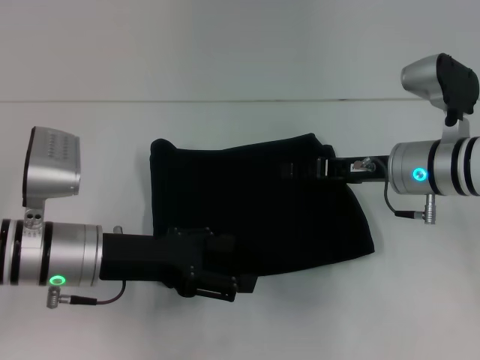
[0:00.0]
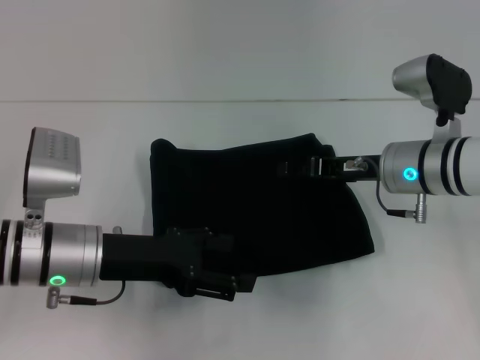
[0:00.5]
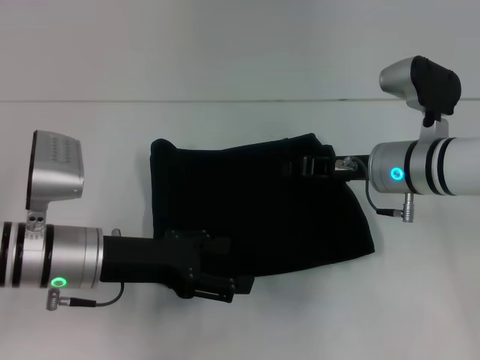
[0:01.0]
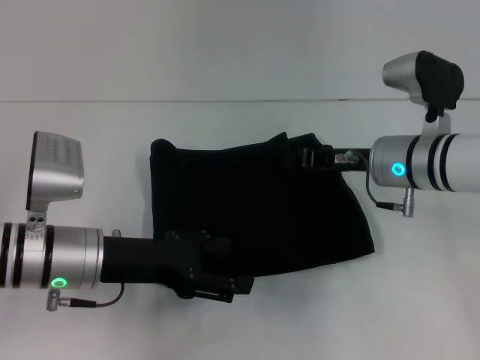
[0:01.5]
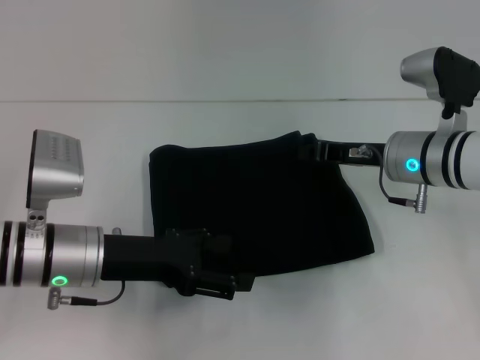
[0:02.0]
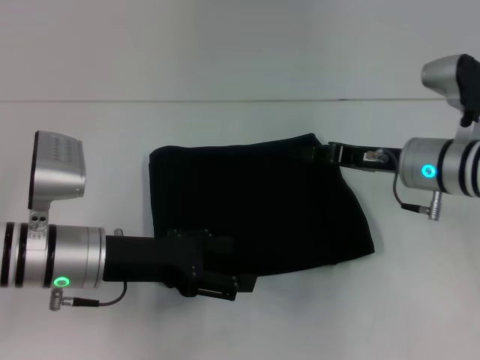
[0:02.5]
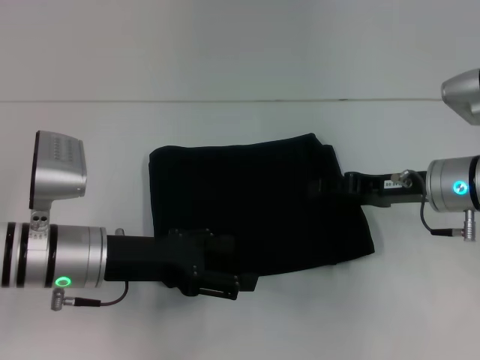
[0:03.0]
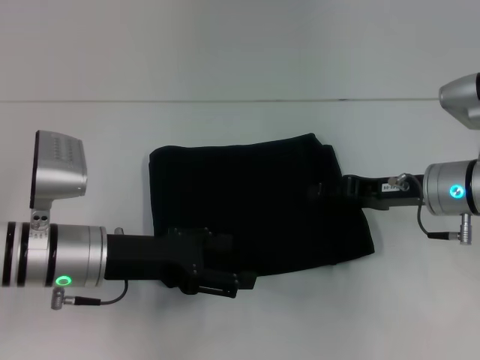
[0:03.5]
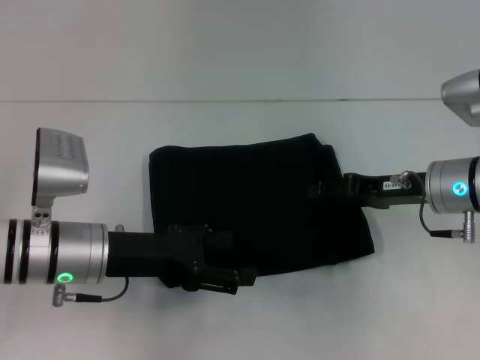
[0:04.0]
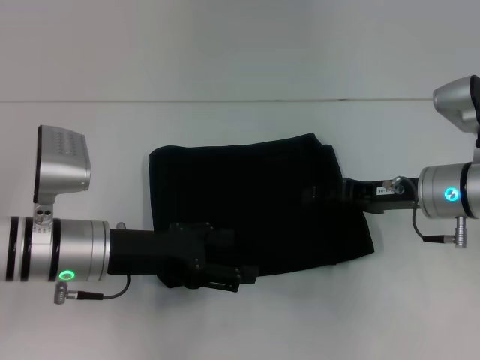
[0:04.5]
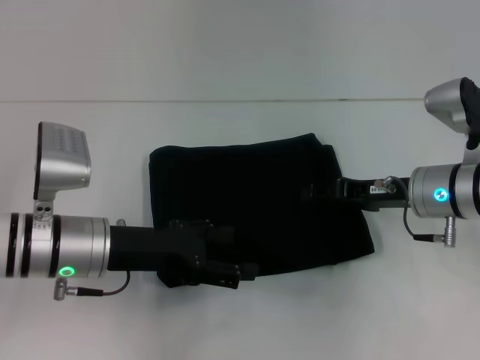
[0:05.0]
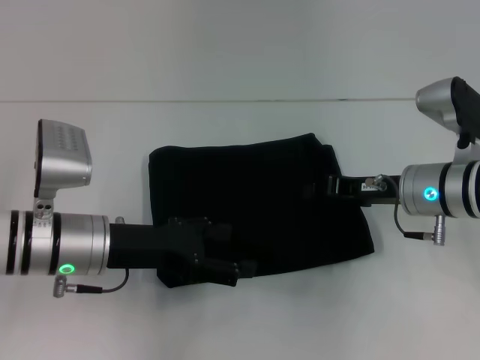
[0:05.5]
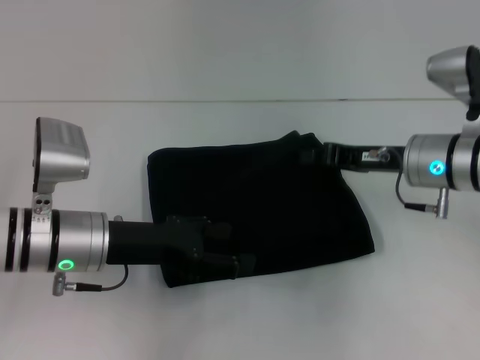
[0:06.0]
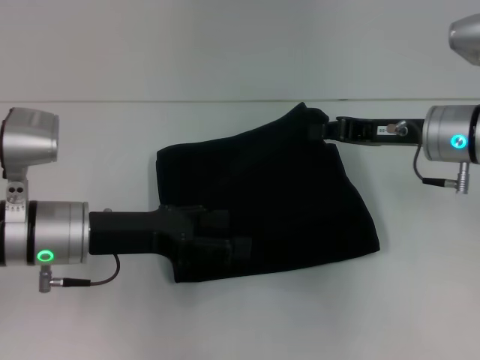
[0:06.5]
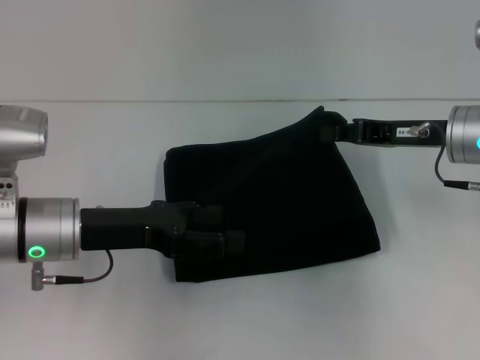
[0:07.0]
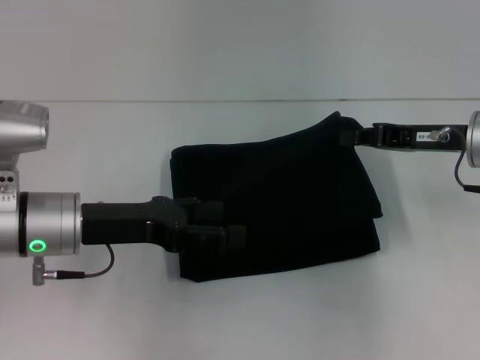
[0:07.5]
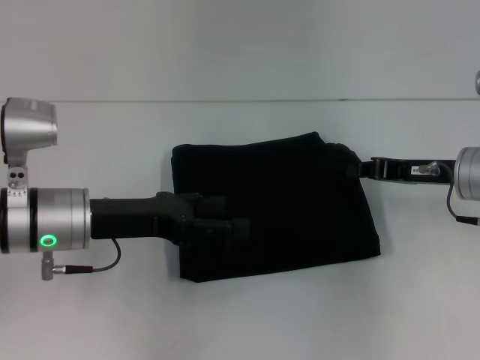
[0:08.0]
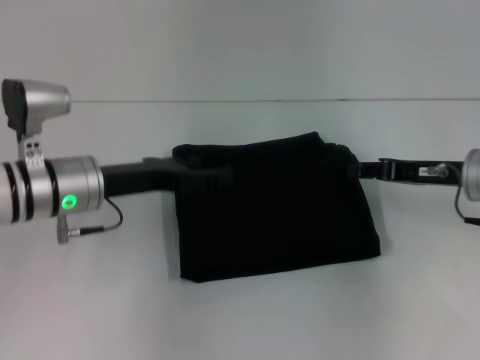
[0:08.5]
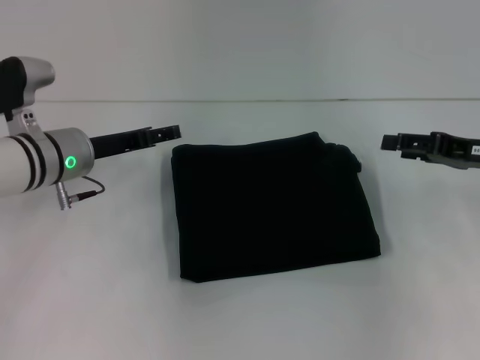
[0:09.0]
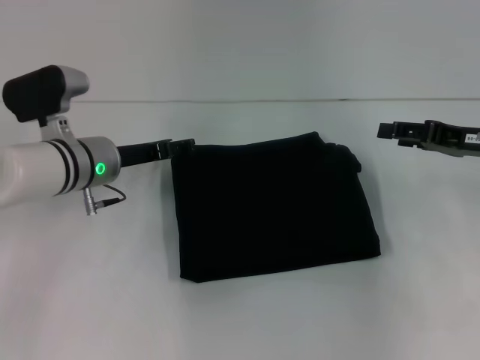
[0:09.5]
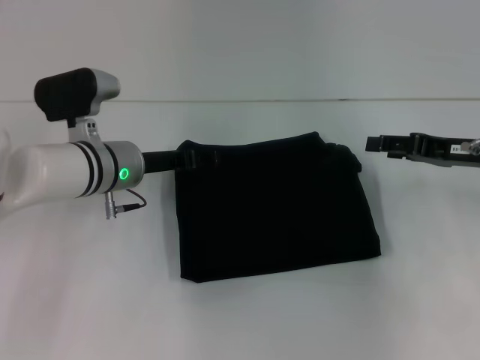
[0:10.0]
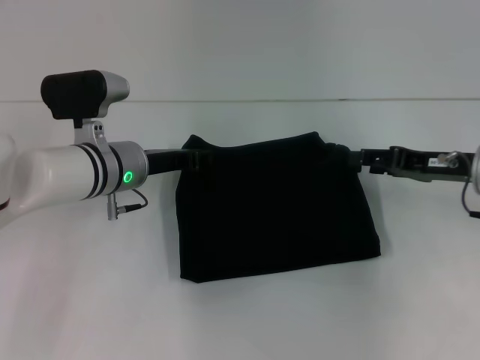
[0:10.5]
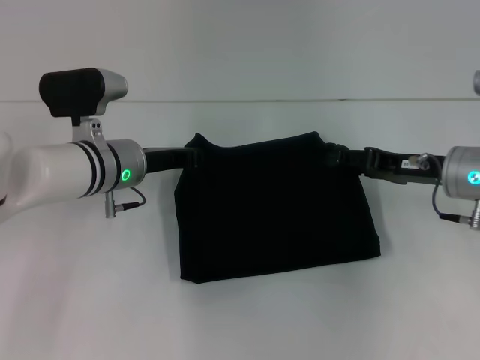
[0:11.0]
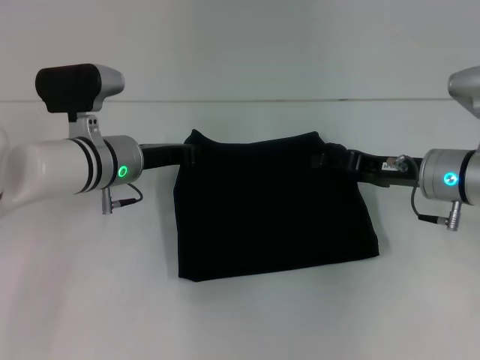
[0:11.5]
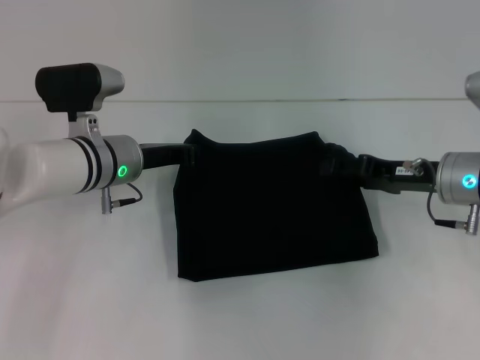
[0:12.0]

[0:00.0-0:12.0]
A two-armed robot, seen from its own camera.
0:00.0 to 0:02.0: The right gripper closes.
0:02.0 to 0:04.0: The right gripper opens up.
0:04.0 to 0:06.0: The right gripper closes.
0:06.0 to 0:08.0: The right gripper heads to the right, covering some 5 cm.
0:08.0 to 0:10.0: The right gripper opens its fingers. Meanwhile the left gripper heads forward, covering about 10 cm.
0:10.0 to 0:12.0: The right gripper goes approximately 5 cm to the left; the left gripper closes.

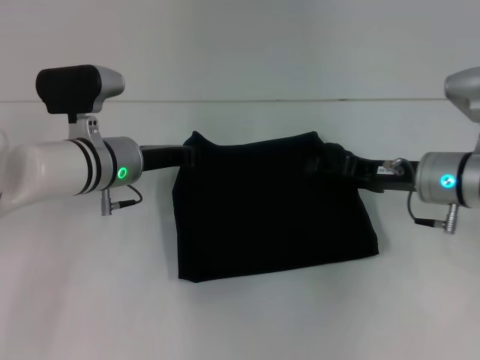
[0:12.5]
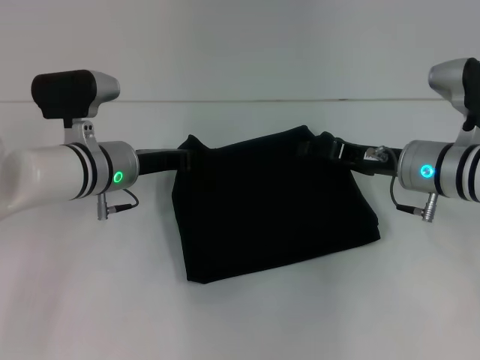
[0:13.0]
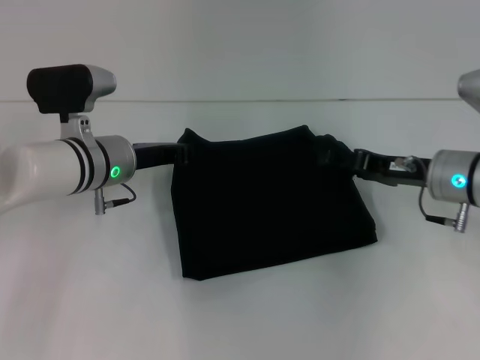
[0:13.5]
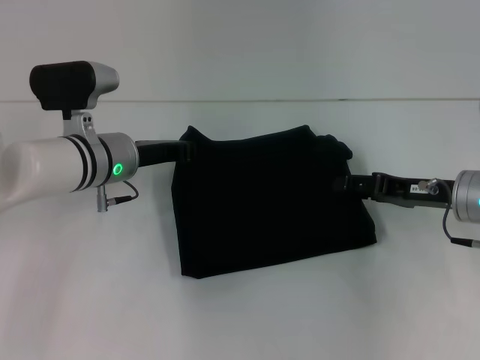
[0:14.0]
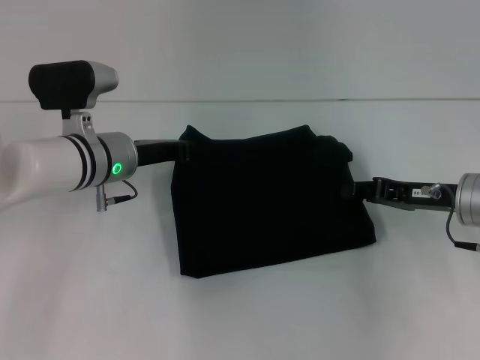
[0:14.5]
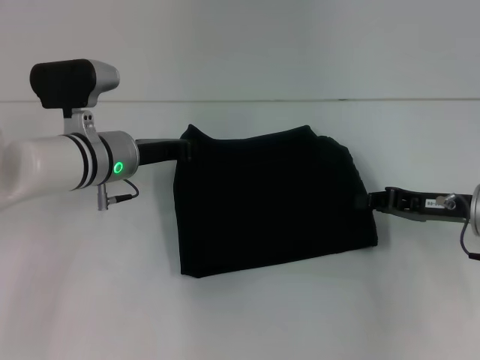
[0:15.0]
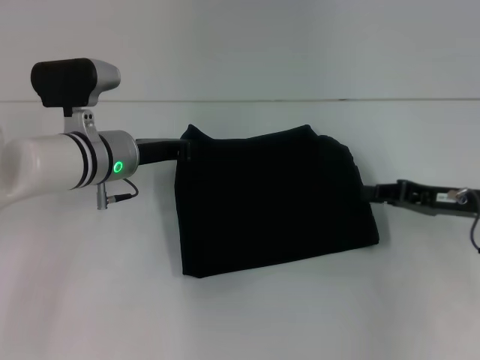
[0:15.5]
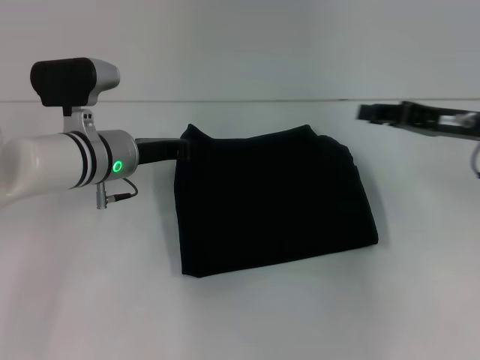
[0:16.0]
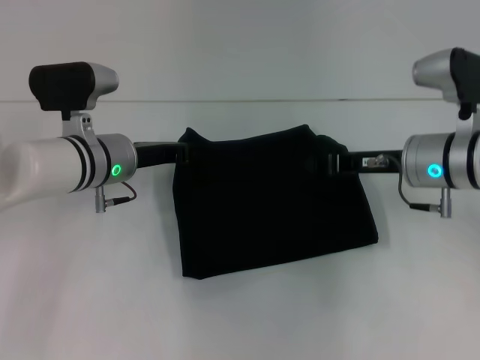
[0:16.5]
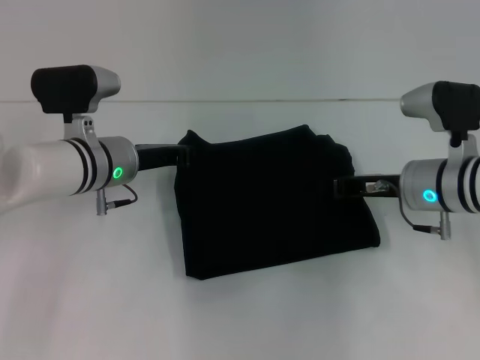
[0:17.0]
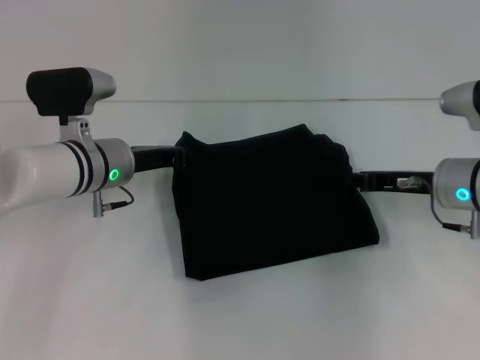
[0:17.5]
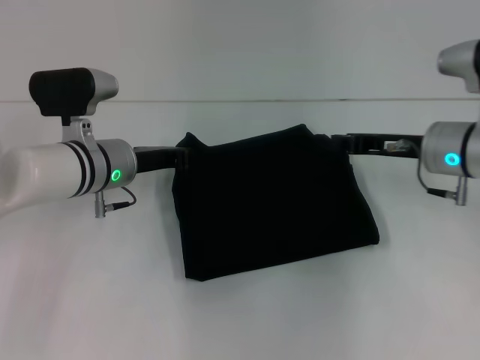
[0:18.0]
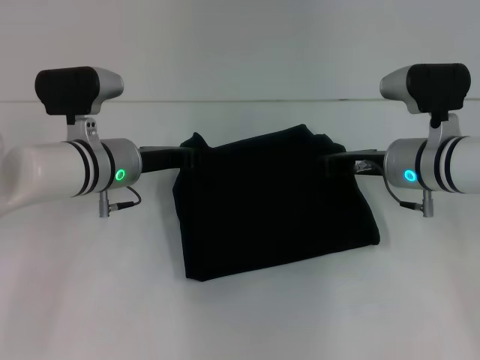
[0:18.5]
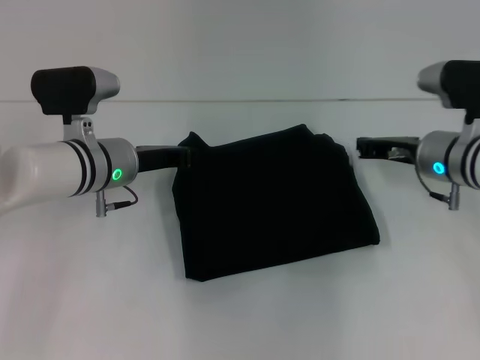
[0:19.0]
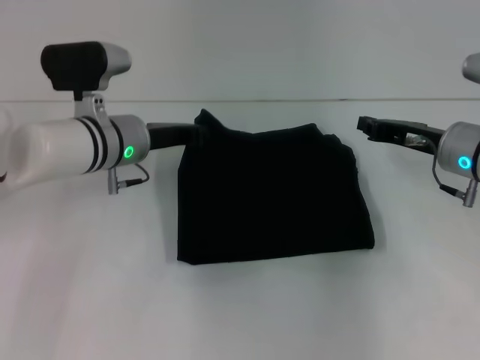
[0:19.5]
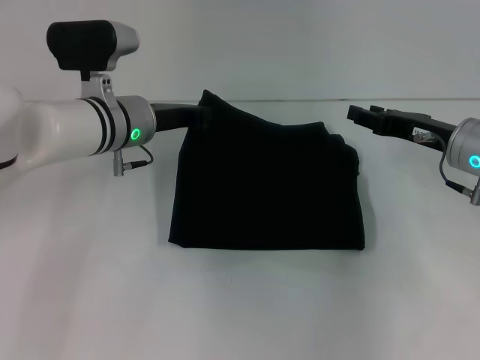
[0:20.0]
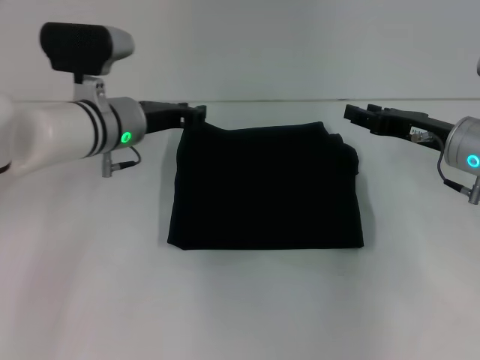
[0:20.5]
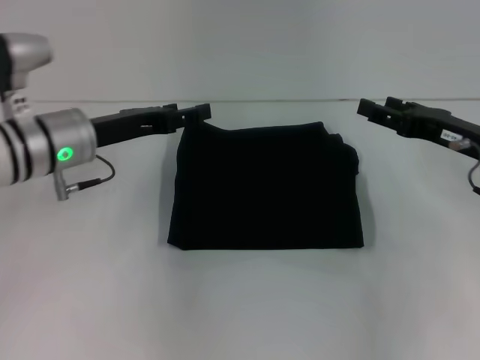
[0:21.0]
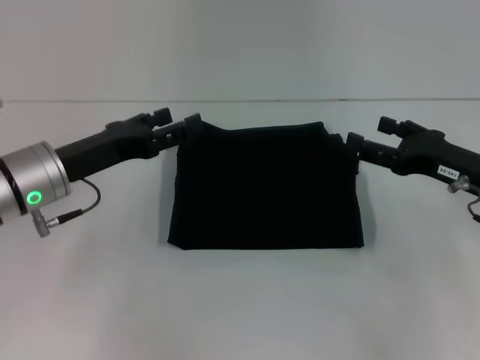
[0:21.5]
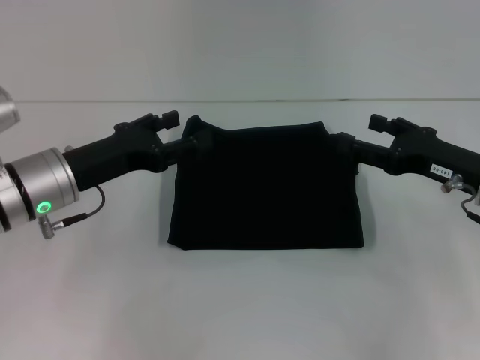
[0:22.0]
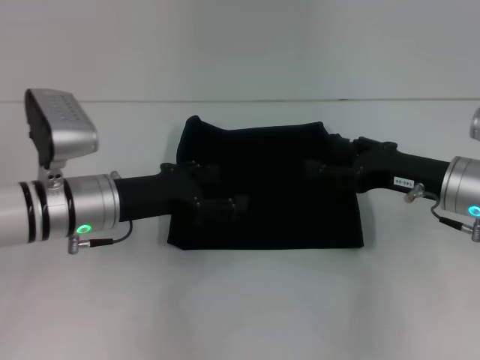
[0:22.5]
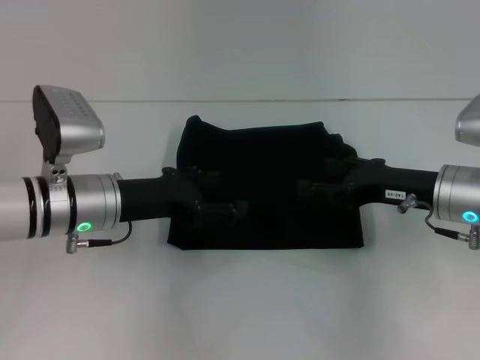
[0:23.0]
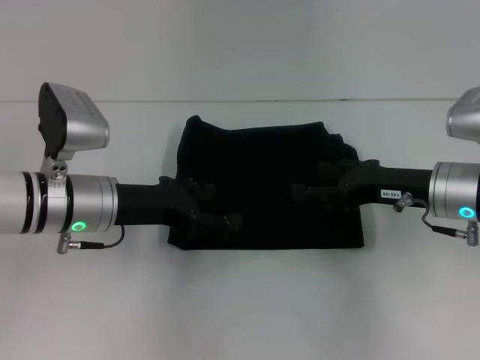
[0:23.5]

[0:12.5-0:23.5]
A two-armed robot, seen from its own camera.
0:12.5 to 0:14.5: The grippers make only small movements.
0:14.5 to 0:16.0: The right gripper heads upward, covering roughly 5 cm, and closes, then opens again.
0:16.0 to 0:18.0: The right gripper heads to the left, covering some 5 cm, and closes its fingers.
0:18.0 to 0:20.0: The left gripper shifts by approximately 5 cm, while the right gripper opens up.
0:20.0 to 0:21.5: The left gripper travels backward and to the left by approximately 10 cm, and opens its fingers; the right gripper heads backward, covering about 5 cm, and opens.
0:21.5 to 0:23.5: The right gripper moves some 5 cm.
